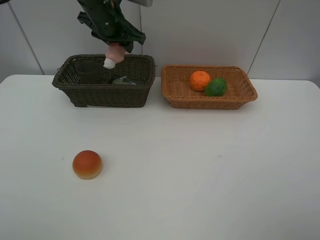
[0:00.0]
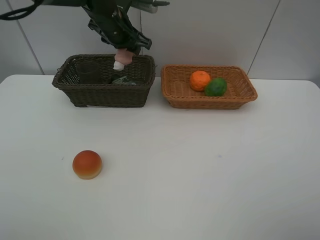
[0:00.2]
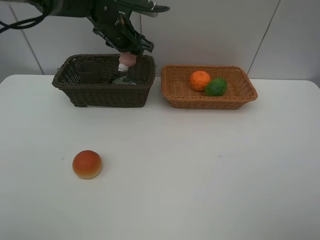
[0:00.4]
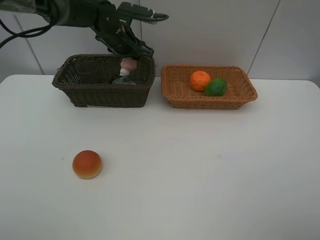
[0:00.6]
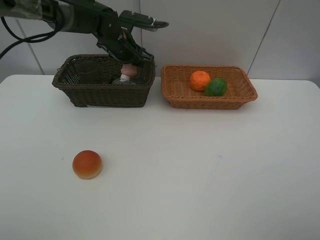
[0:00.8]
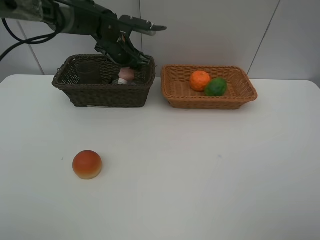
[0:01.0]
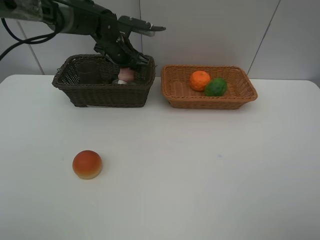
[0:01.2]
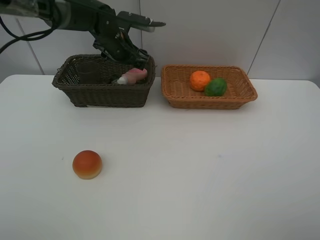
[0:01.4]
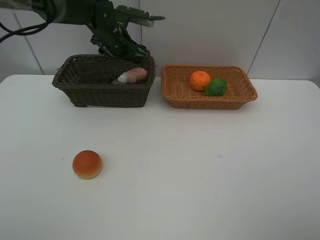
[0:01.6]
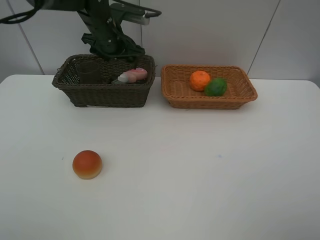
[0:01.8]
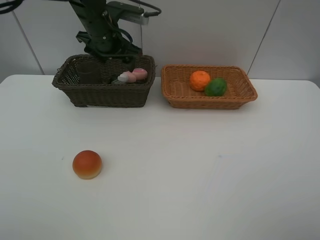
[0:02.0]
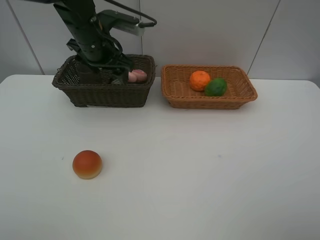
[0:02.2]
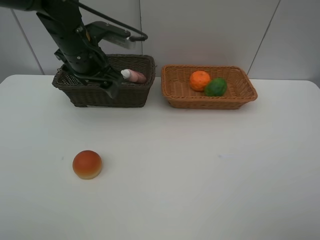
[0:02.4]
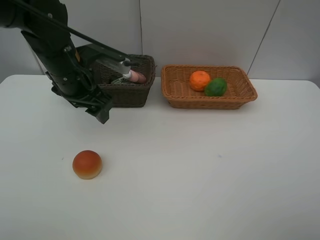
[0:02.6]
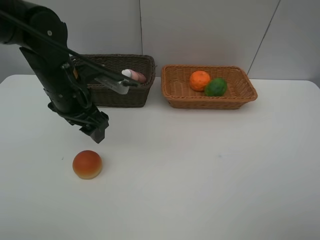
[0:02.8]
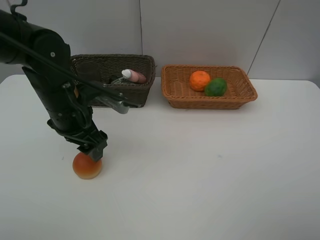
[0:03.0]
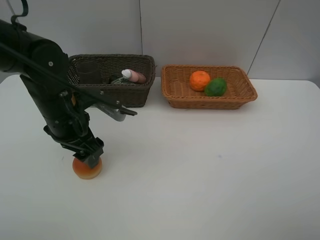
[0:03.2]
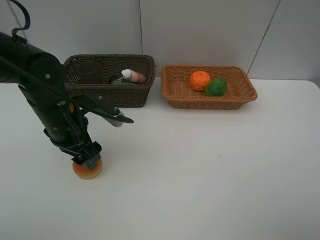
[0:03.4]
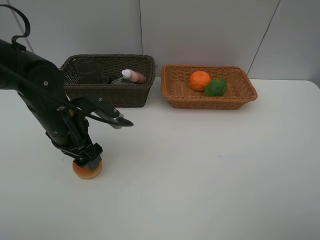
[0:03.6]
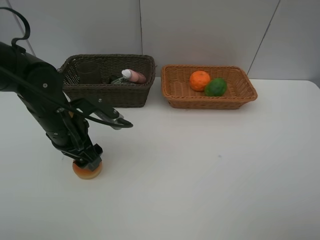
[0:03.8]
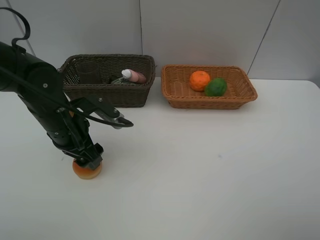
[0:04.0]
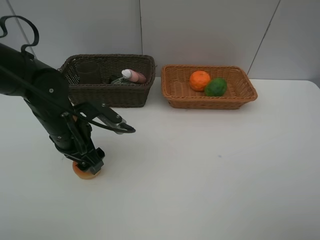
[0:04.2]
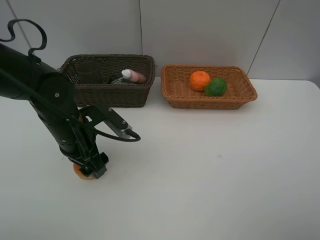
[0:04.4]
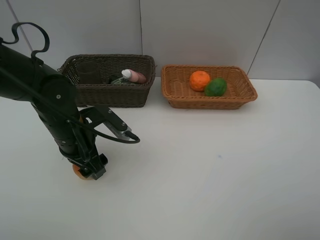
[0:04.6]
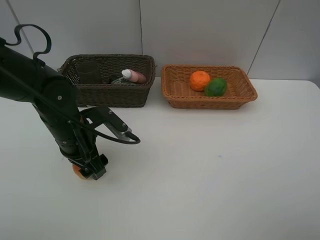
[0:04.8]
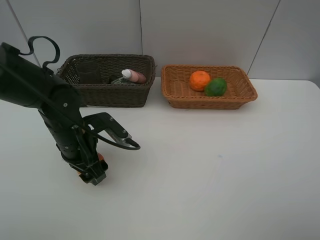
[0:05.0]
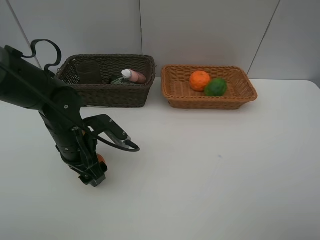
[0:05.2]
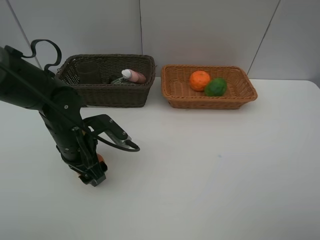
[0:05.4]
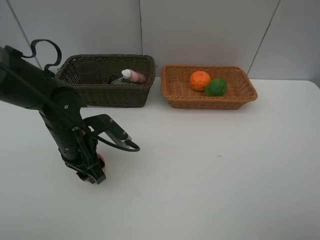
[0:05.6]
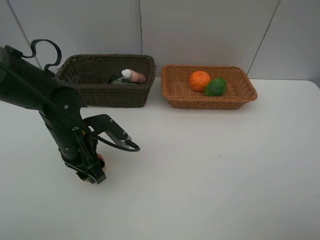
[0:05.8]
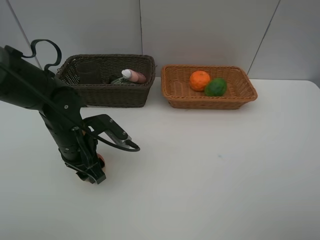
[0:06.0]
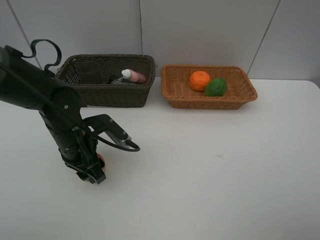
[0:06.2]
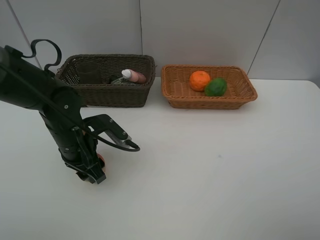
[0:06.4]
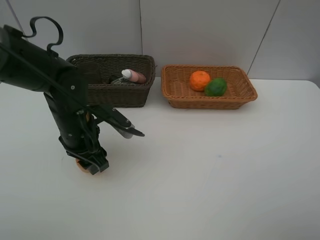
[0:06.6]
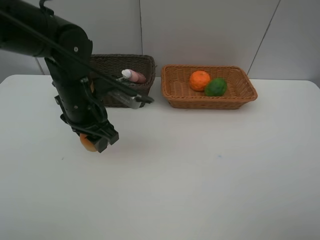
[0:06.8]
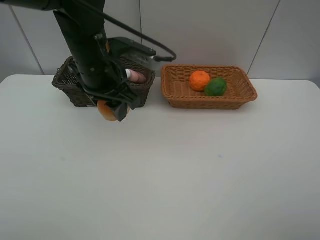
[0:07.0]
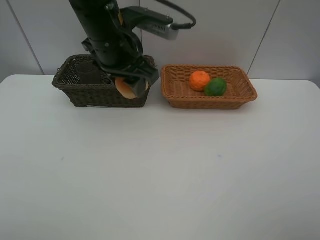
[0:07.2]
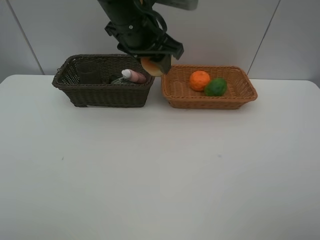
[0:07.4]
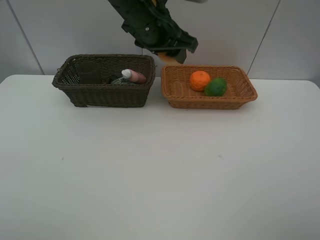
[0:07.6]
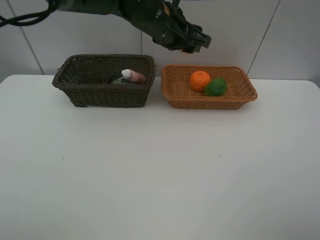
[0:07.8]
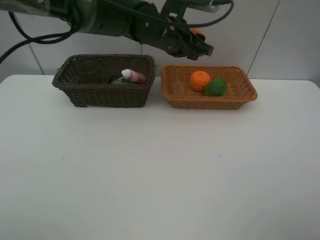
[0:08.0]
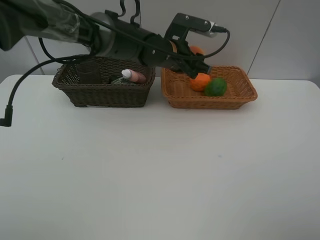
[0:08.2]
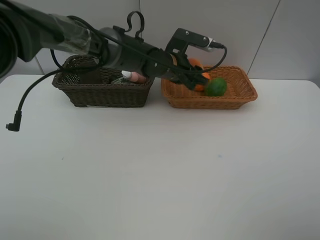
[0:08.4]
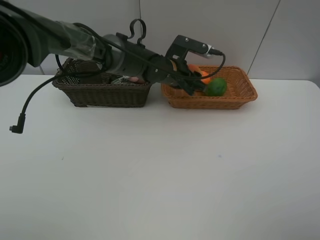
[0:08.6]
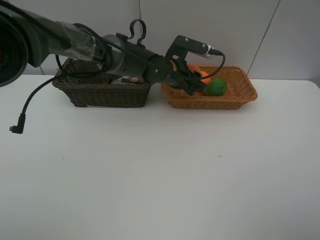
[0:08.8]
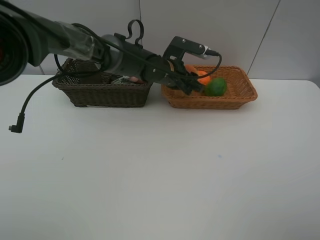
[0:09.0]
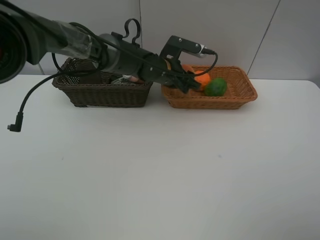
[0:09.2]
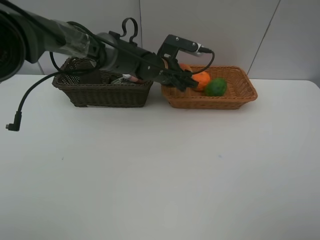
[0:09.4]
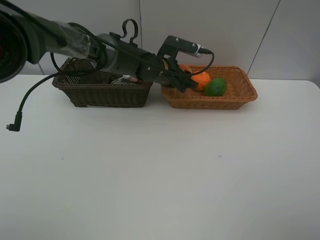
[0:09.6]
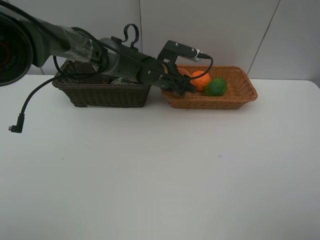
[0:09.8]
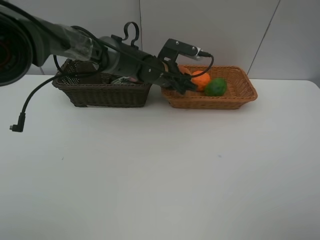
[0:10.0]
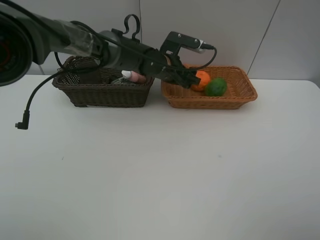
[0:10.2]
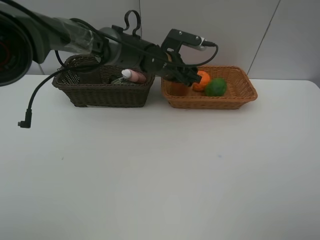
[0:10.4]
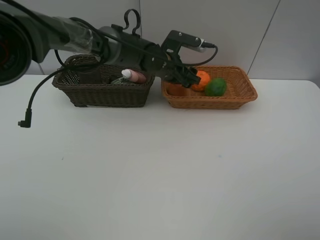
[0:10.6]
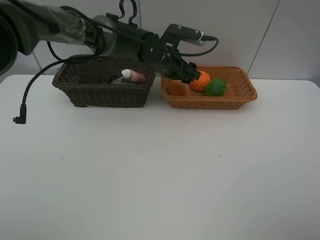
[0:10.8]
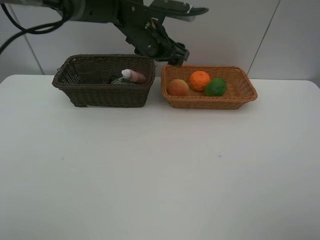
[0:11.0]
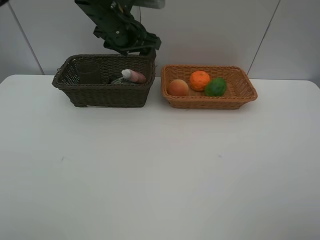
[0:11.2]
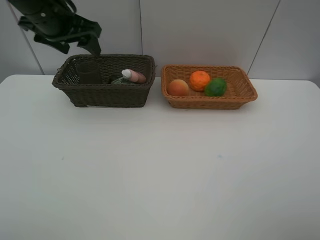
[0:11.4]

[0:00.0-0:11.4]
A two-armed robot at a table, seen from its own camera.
Task of the whole recording: place multiple objects separately in different baskets.
0:00.0 to 0:01.4: The left gripper moves downward, about 5 cm, and opens its fingers.
0:01.4 to 0:02.8: The left gripper travels backward by some 20 cm.
0:02.8 to 0:04.2: The left gripper heads downward, covering approximately 5 cm.
0:04.2 to 0:05.6: The grippers stay close to where they were, moving slightly.
0:05.6 to 0:07.2: The left gripper travels upward, to the right and forward by approximately 20 cm.
0:07.2 to 0:08.6: The left gripper goes some 20 cm downward, to the right and forward.
0:08.6 to 0:10.0: The grippers make only small movements.
0:10.0 to 0:11.4: The left gripper is displaced to the left and upward by roughly 30 cm.

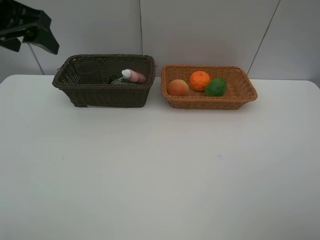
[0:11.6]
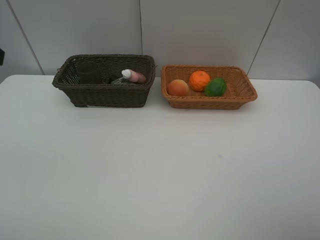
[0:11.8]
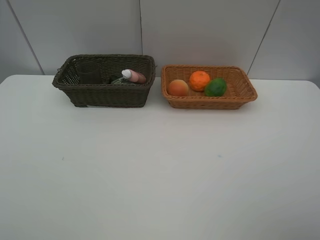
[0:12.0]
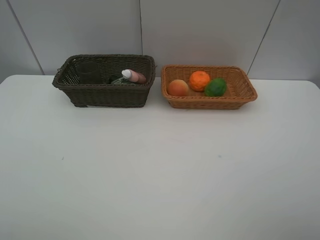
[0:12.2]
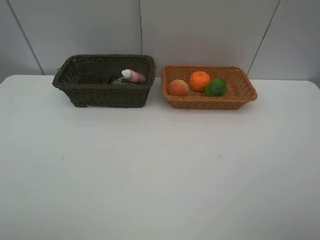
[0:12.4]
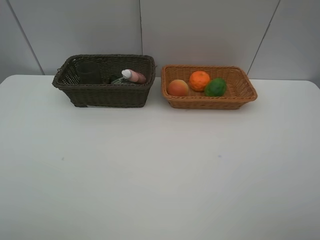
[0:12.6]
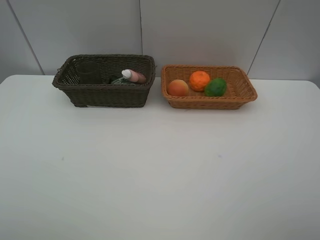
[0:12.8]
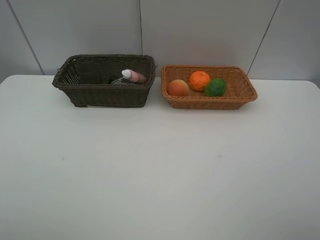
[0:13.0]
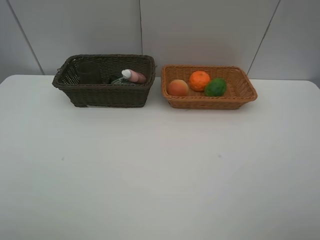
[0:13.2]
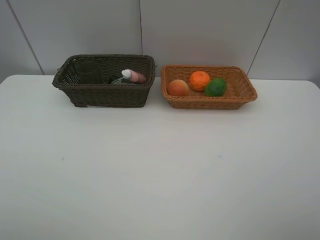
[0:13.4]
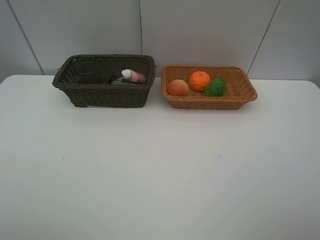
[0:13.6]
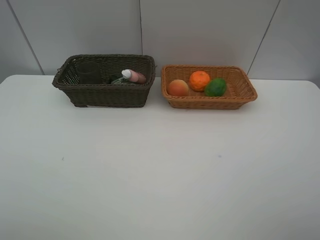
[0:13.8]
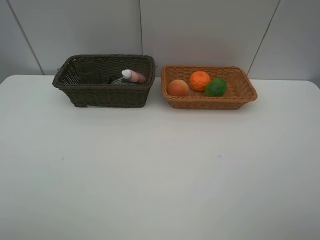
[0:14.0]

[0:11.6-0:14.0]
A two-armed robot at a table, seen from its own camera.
Task of the whole recording: place multiple objects separately in different baskets.
0:11.6 to 0:12.8: The left gripper shifts roughly 25 cm backward.
0:12.8 to 0:14.0: Both grippers stay about where they are.

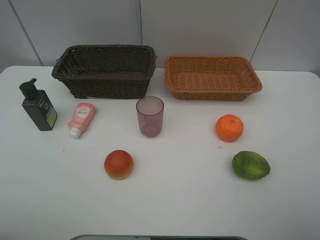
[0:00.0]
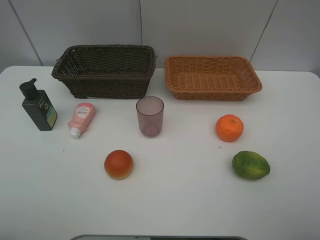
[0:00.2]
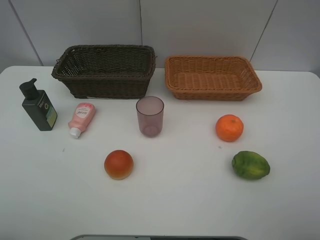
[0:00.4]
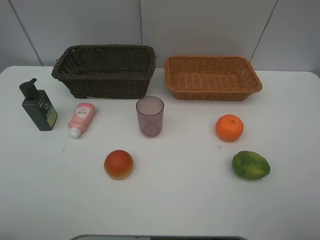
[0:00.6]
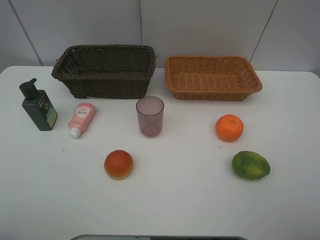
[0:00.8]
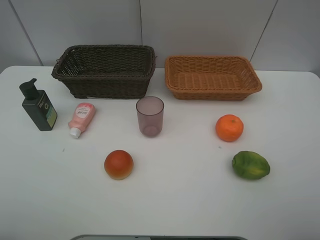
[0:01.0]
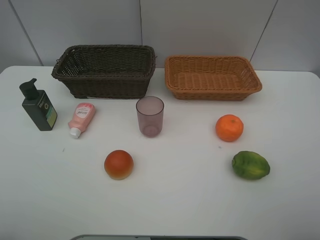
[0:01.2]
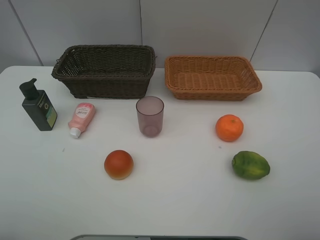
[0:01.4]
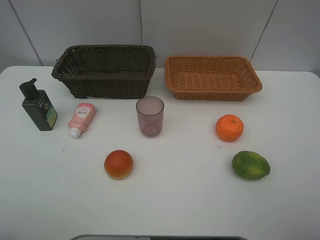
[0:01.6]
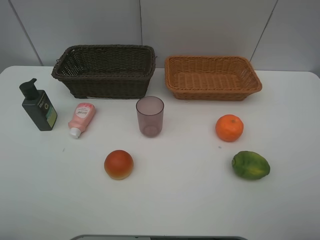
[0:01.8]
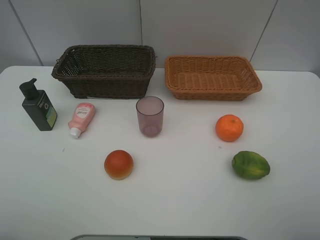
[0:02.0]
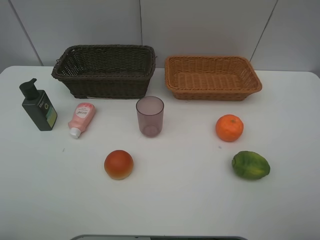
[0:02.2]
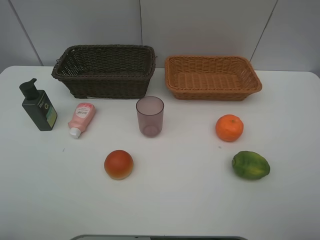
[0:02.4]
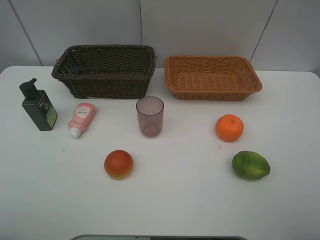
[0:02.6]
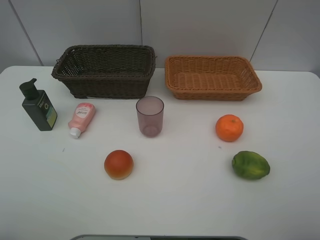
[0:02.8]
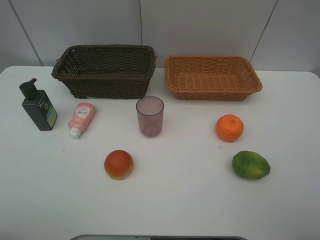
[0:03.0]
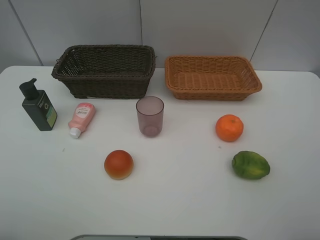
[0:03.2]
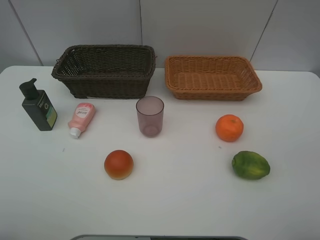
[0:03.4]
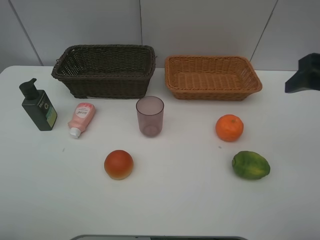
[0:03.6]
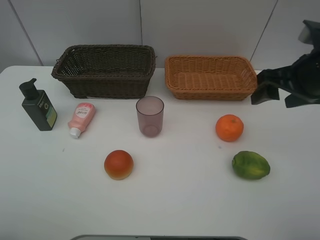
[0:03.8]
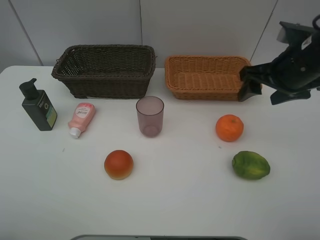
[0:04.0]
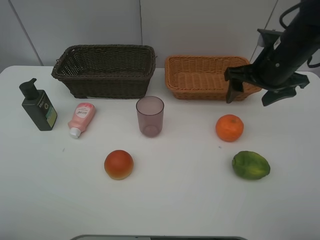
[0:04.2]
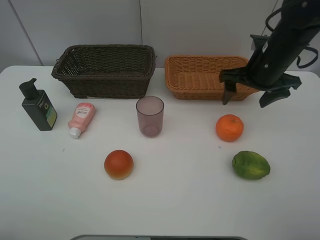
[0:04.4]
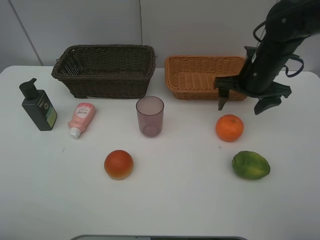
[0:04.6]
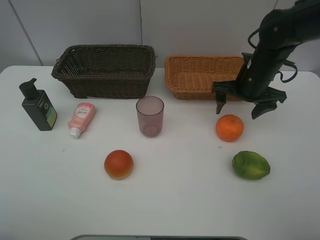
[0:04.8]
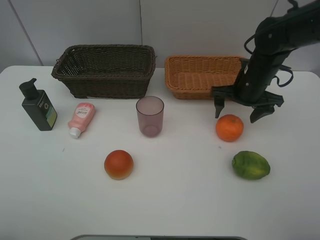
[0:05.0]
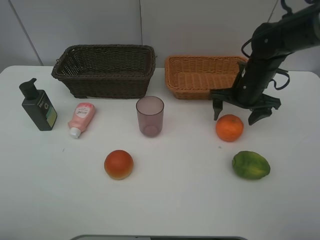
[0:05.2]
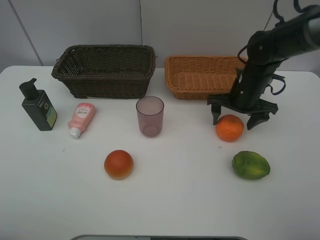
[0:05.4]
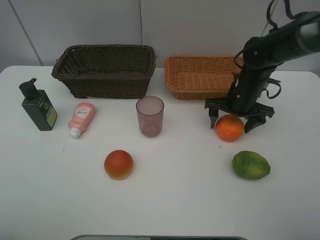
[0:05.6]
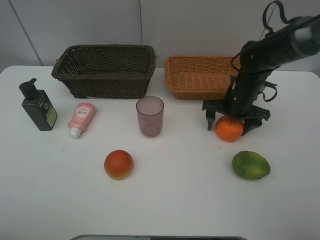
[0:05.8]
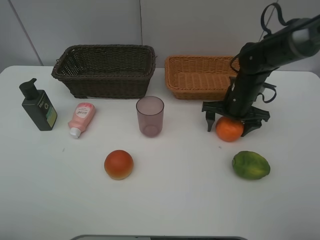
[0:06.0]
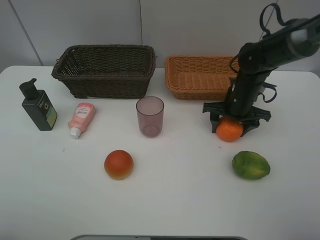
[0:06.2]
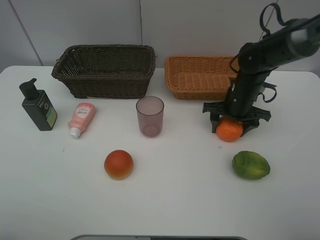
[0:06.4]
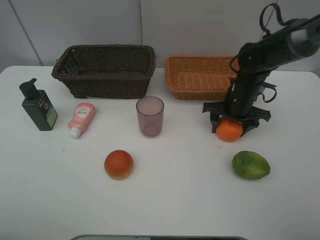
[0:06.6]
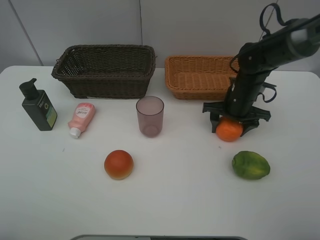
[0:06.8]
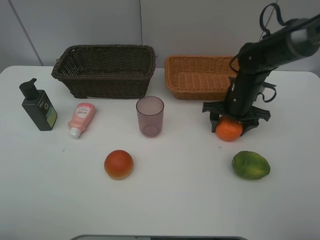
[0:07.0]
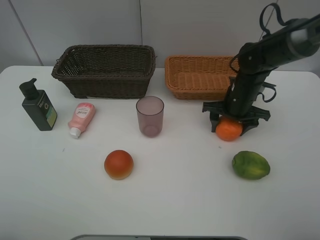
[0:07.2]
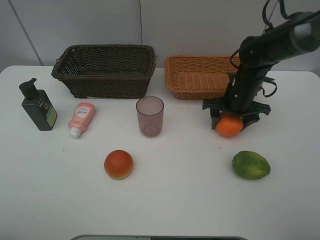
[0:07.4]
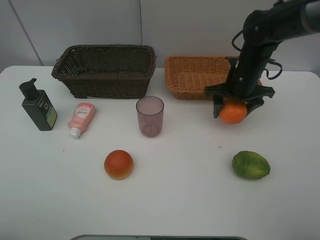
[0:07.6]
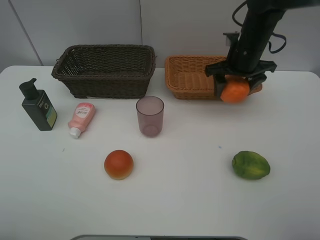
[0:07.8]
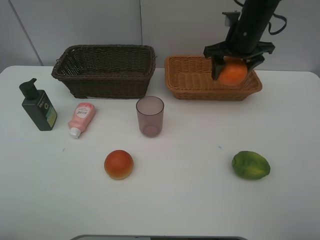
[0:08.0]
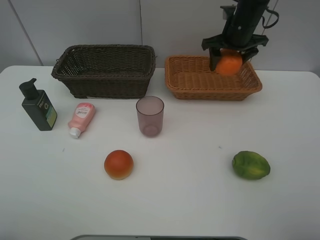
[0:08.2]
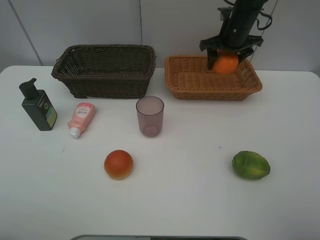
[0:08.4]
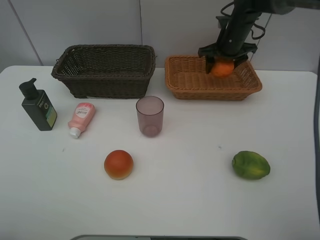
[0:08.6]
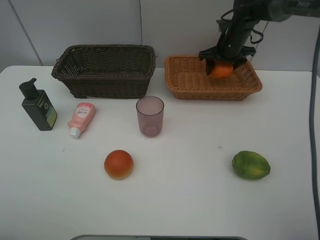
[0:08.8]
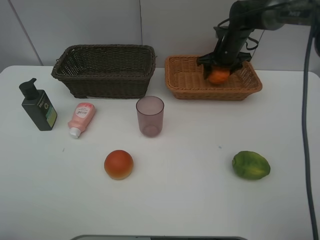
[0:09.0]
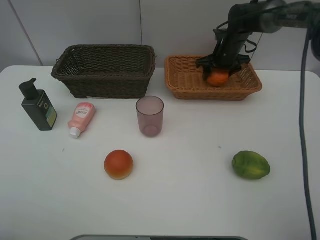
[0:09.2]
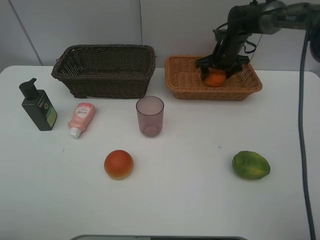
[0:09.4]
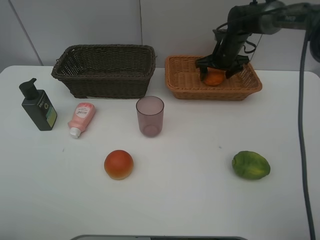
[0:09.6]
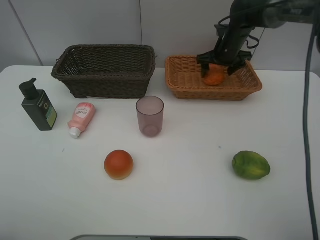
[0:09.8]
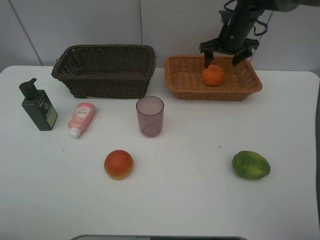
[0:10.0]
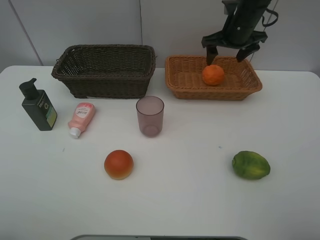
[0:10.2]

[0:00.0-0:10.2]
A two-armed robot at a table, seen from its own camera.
Task of the whole recording: place multiple objects separately in different baskets.
0:00.0 to 0:01.4: Both grippers stay put.
0:03.0 to 0:04.4: The right gripper is displaced forward and downward by about 30 cm.
0:04.4 to 0:05.8: The right gripper shifts roughly 10 cm downward.
0:05.8 to 0:07.2: The right gripper closes.
0:07.2 to 0:08.8: The right gripper is displaced forward and upward by roughly 15 cm.
0:08.8 to 0:10.2: The right gripper goes roughly 5 cm upward, and opens its fingers.
